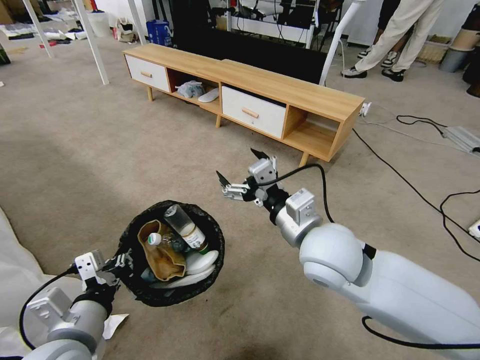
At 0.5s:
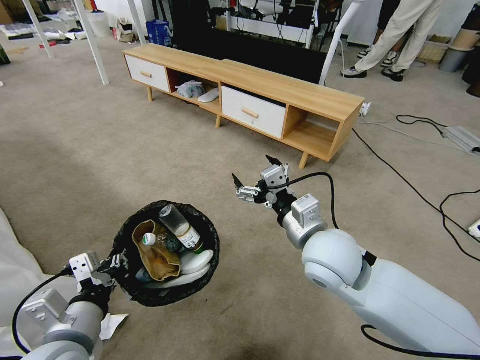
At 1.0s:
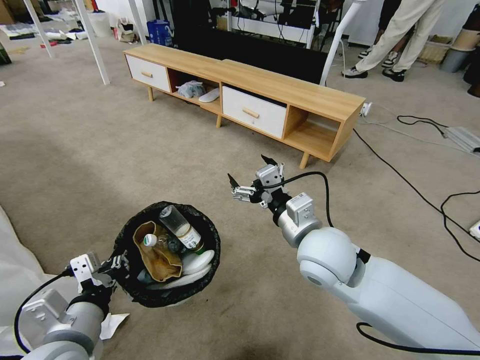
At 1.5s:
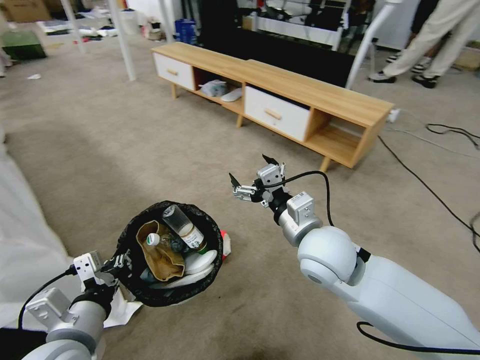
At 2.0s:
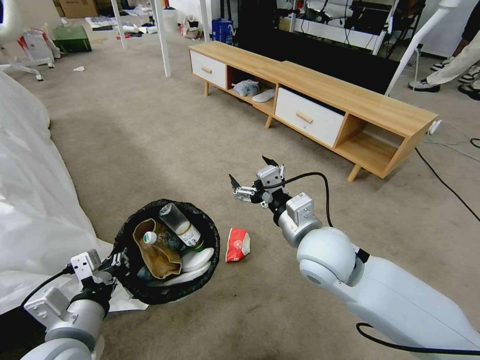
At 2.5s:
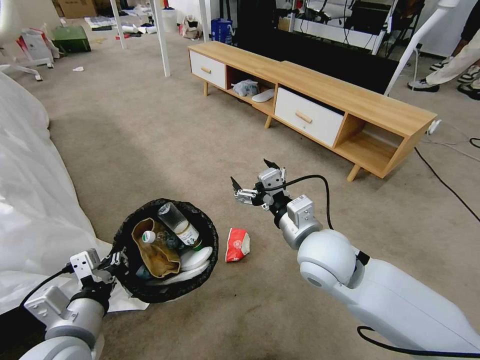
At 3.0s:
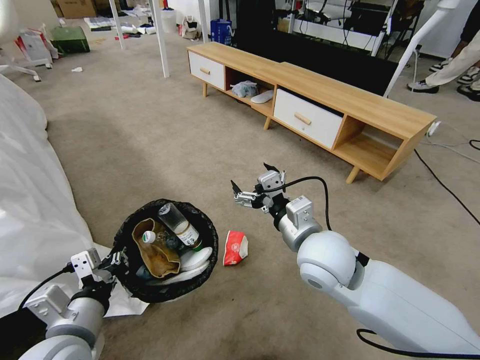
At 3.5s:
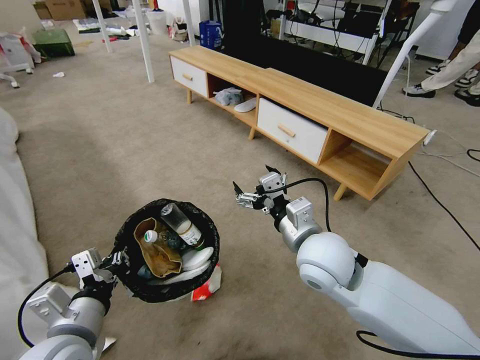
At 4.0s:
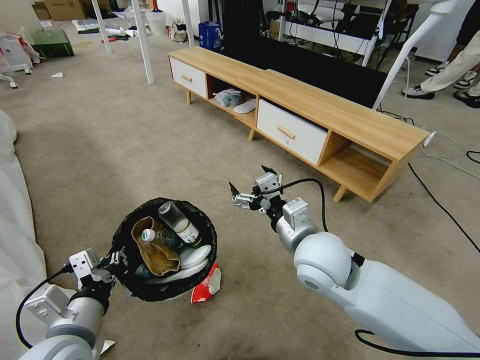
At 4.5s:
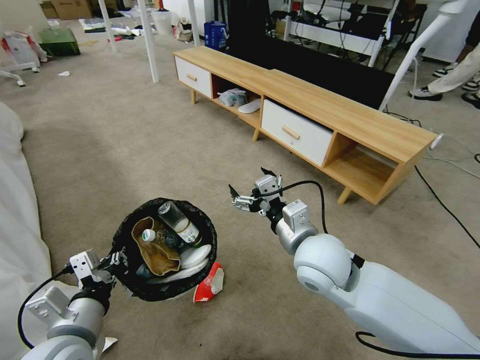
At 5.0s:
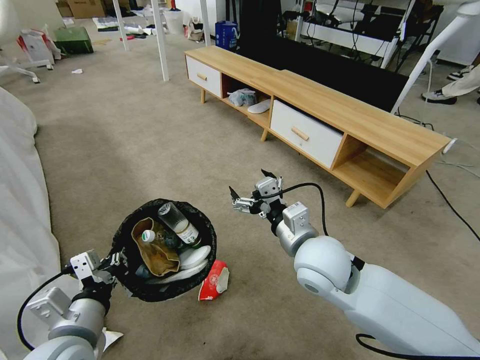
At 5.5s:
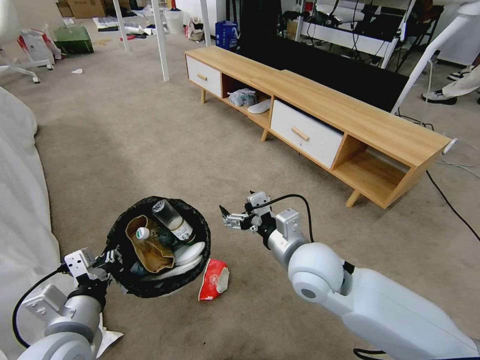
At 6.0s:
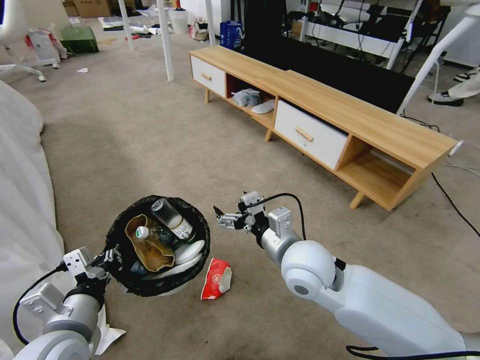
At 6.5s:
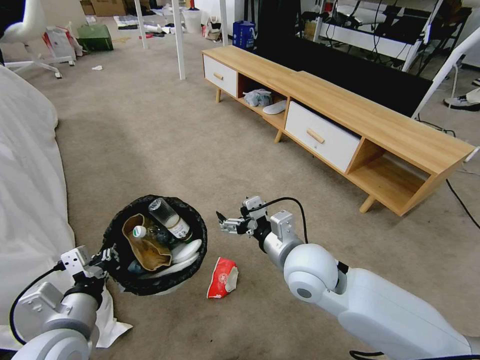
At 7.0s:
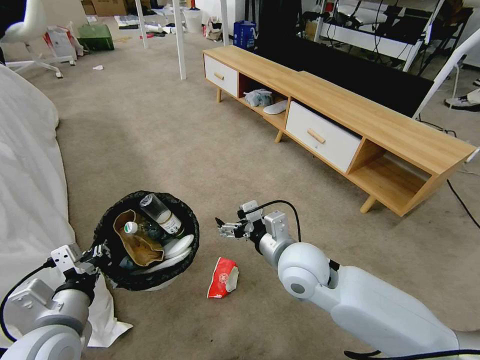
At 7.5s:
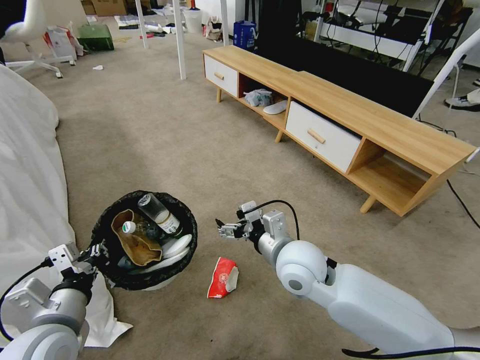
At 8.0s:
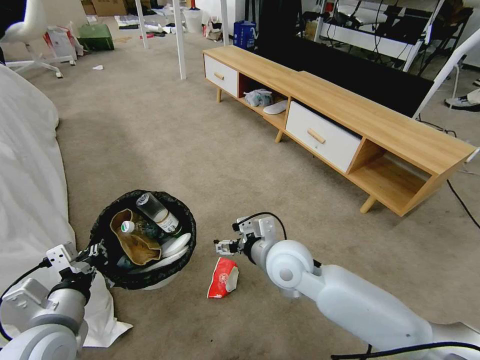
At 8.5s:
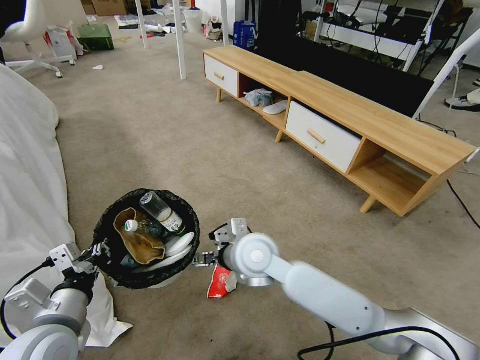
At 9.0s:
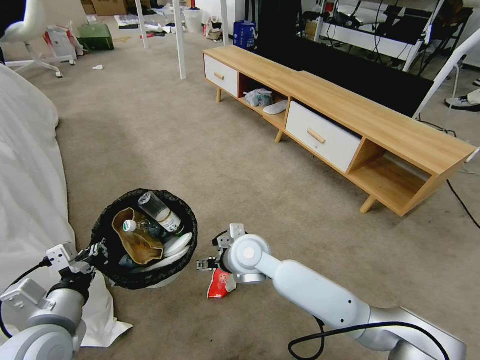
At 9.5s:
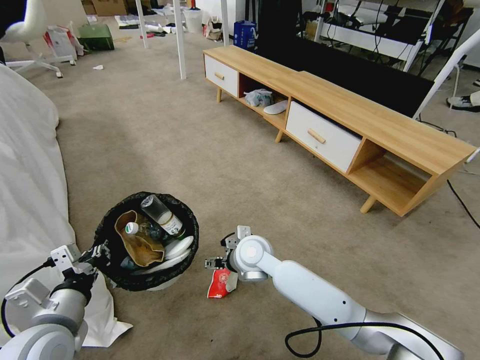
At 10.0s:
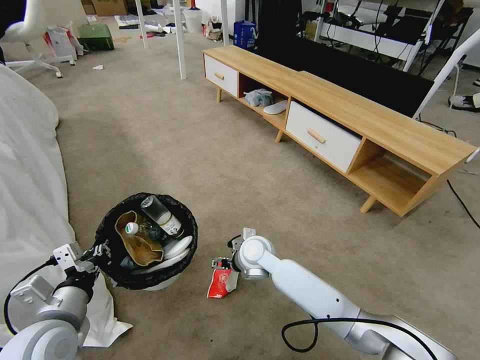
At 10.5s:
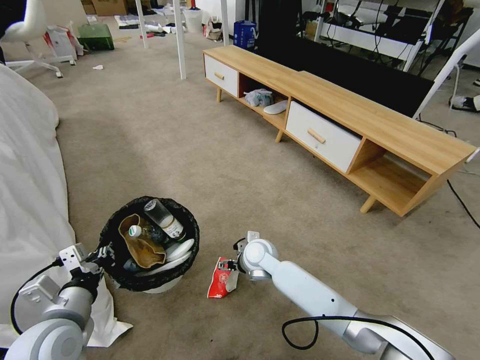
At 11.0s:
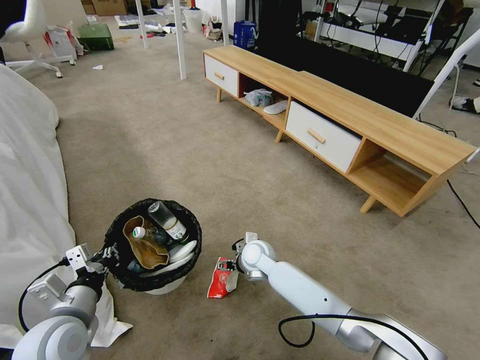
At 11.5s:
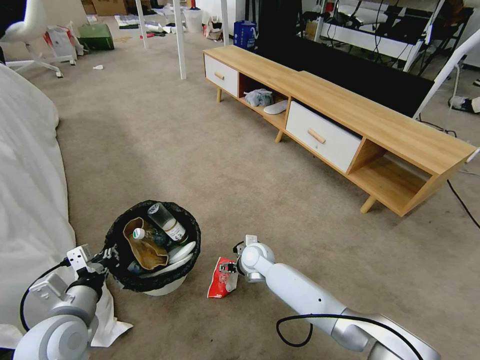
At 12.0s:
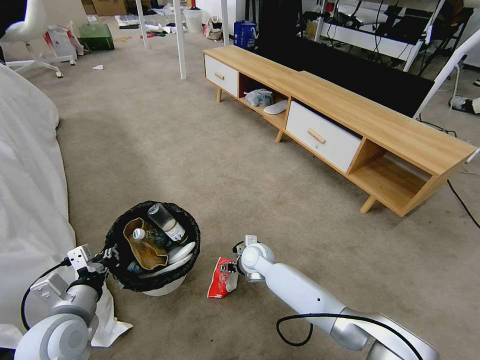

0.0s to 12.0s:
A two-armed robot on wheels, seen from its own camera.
Task of the whole recording: Pick up the trash bin and place the garbage on the floor into it.
6.0s to 8.0s: The right gripper changes place by roughly 5 cm.
8.0s to 10.0s: The right gripper shifts about 15 cm downward and forward.
10.0s to 12.0s: The right gripper goes roughly 5 cm downward.

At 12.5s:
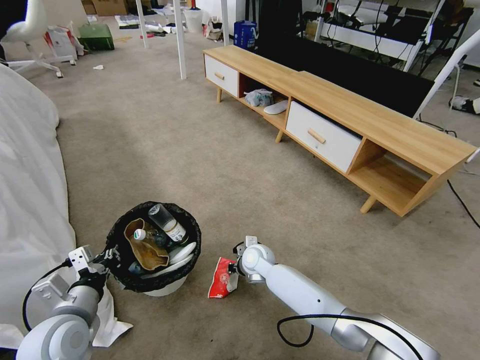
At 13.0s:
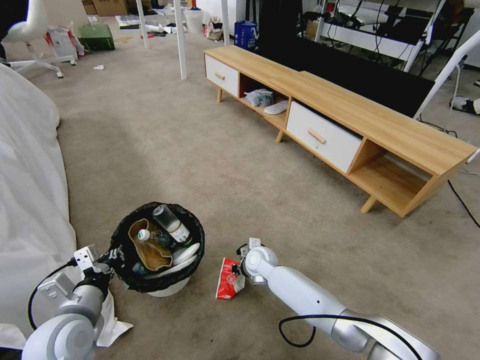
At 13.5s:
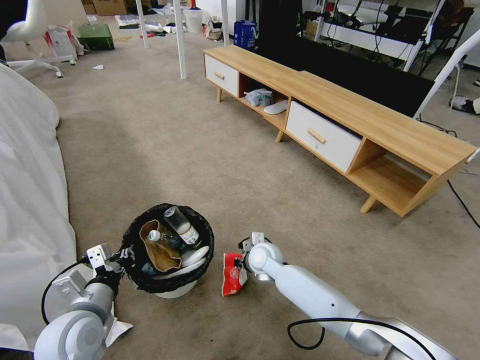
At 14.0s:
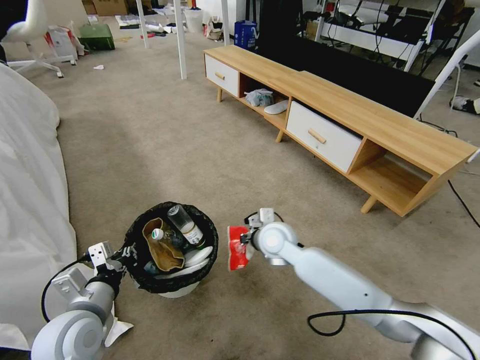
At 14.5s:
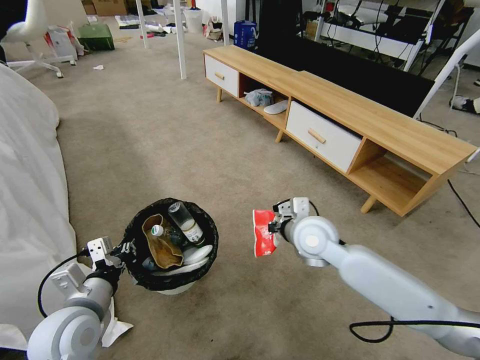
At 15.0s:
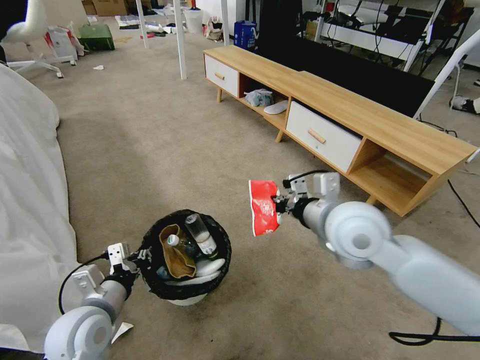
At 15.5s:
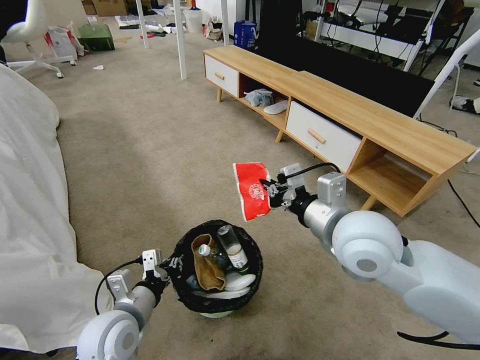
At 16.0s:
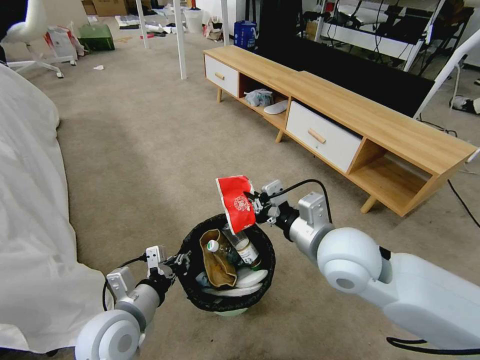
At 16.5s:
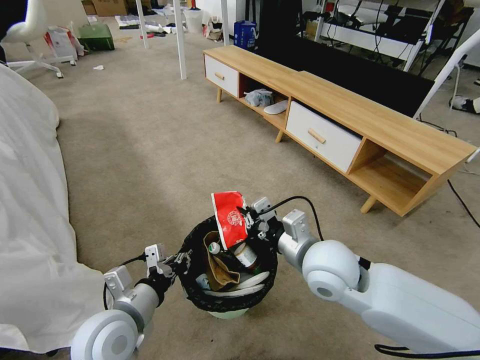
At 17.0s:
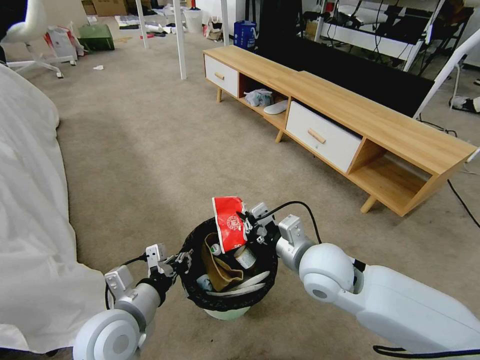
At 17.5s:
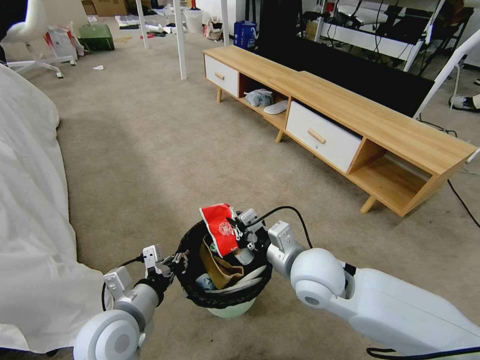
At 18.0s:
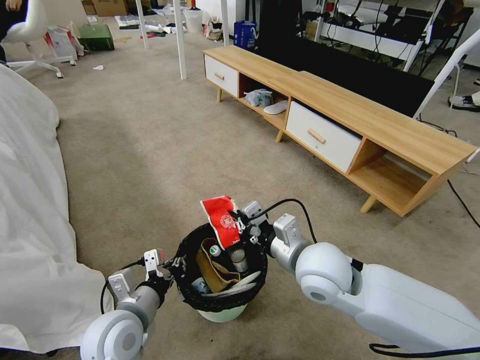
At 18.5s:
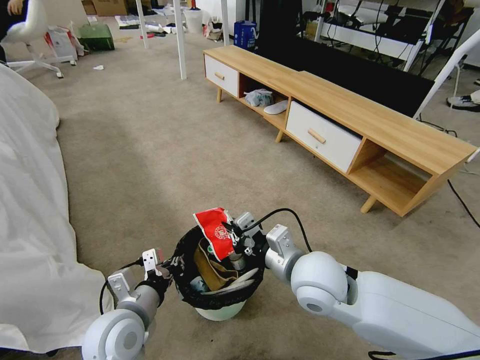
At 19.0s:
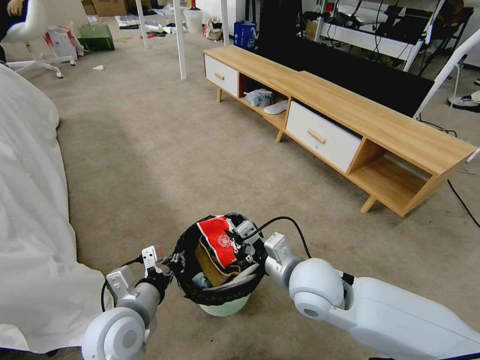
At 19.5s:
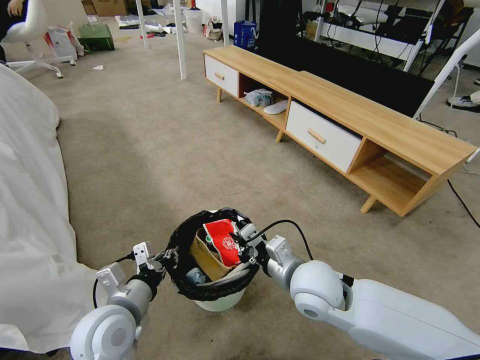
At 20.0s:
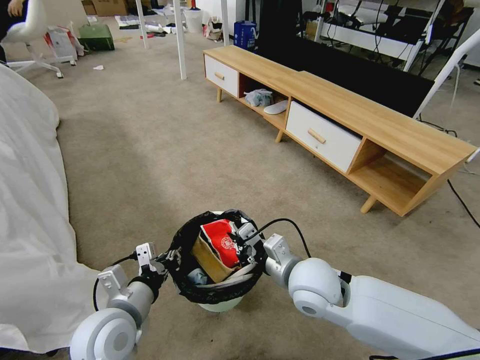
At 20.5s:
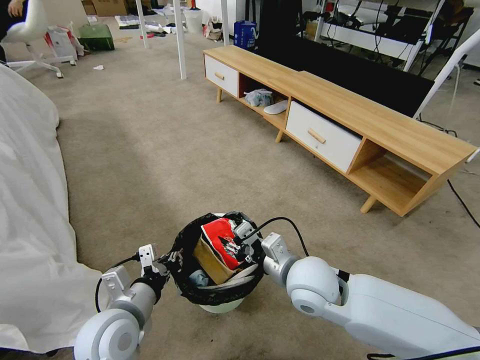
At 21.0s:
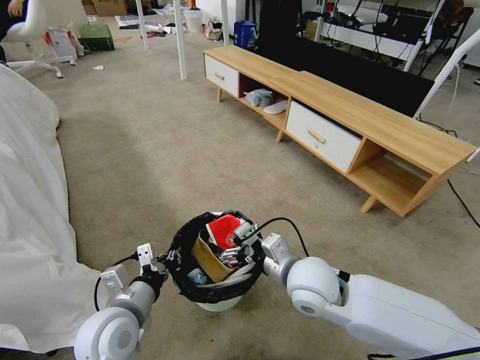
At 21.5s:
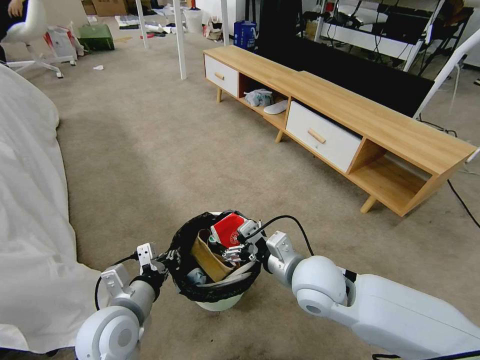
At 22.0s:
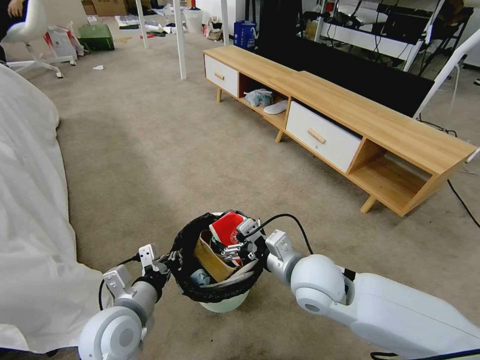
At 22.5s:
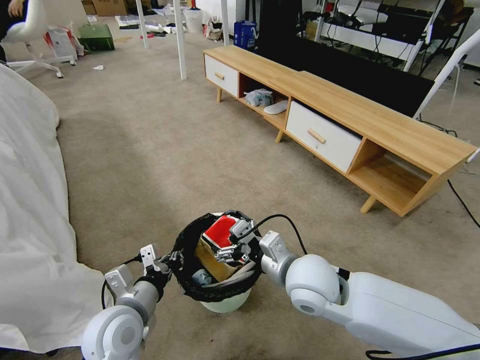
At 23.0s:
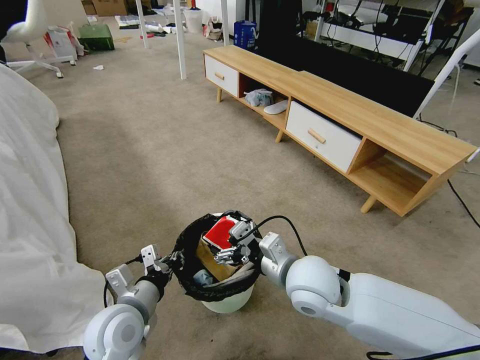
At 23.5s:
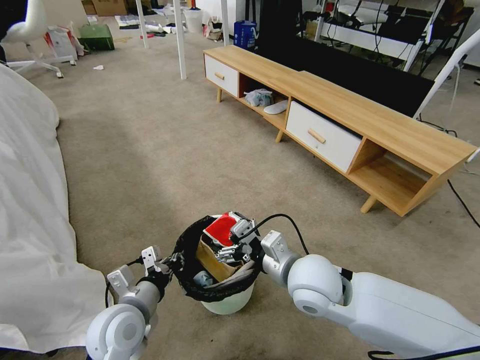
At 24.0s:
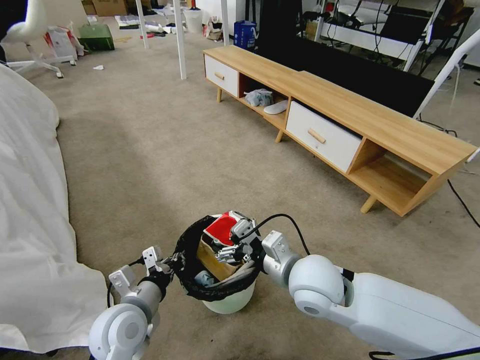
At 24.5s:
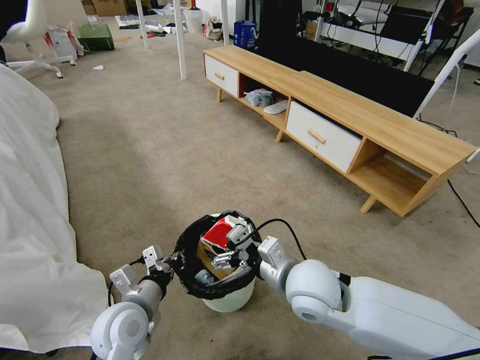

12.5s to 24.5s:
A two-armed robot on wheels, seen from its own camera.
Task of the whole recording: Pick up the trash bin and place the garbage on the floor into it.
12.5s to 14.5s: The right gripper moves upward and to the right, roughly 20 cm.
14.5s to 16.5s: The left gripper heads to the right, covering some 5 cm, while the right gripper travels backward by about 10 cm, and travels upward and back again, roughly 10 cm each way.
16.5s to 18.5s: The grippers make only small movements.
18.5s to 20.5s: The right gripper opens up.
20.5s to 22.5s: The right gripper opens.
22.5s to 24.5s: The grippers make only small movements.

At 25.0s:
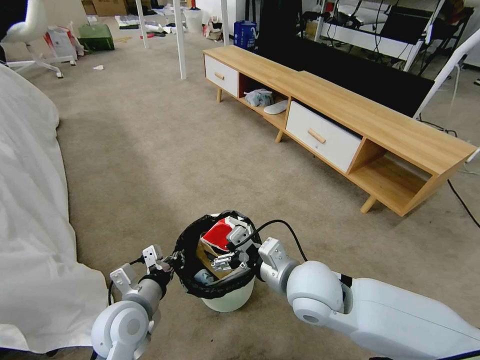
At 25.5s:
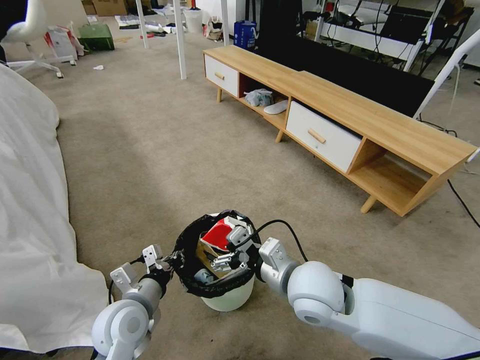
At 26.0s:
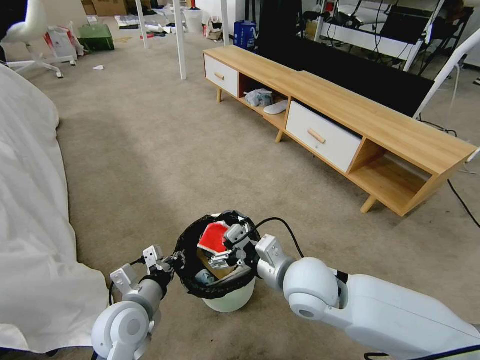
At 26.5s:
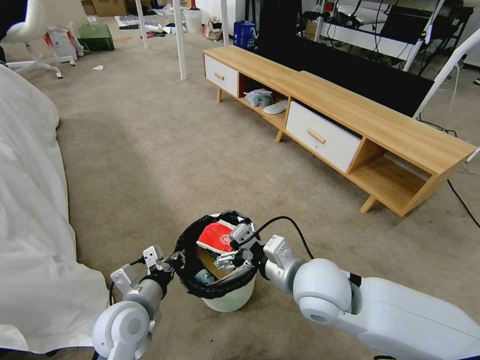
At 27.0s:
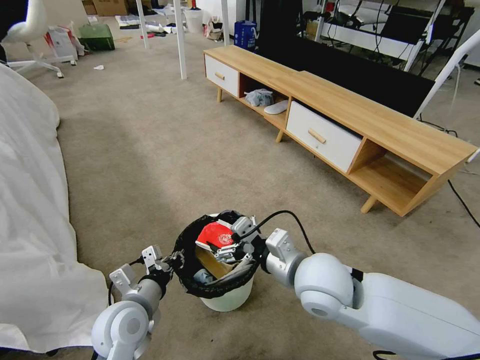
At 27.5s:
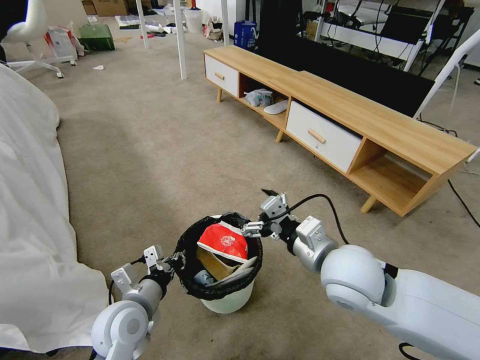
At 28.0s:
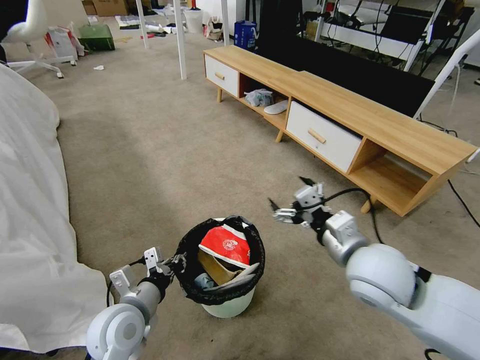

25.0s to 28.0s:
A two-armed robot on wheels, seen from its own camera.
Task of the whole recording: Pick up the trash bin and place the garbage on the floor into it.
25.0s to 26.5s: The grippers move only a little.
26.5s to 28.0s: The right gripper shifts some 10 cm to the right.
